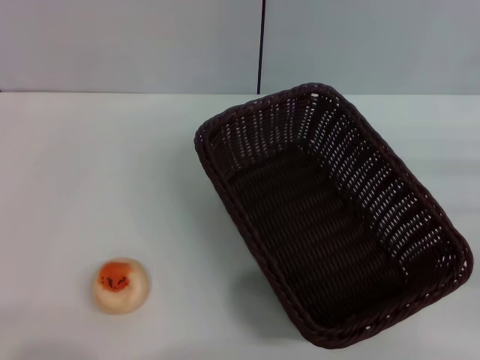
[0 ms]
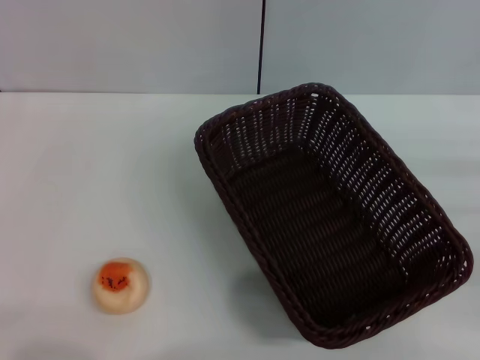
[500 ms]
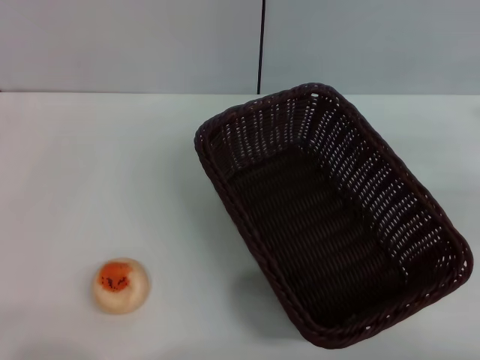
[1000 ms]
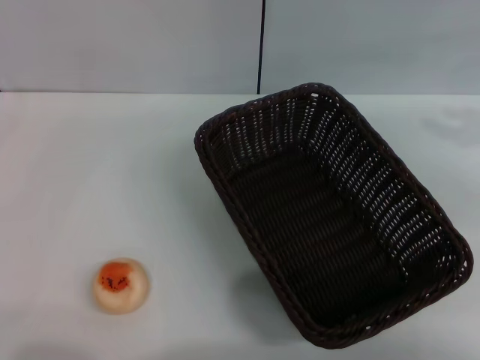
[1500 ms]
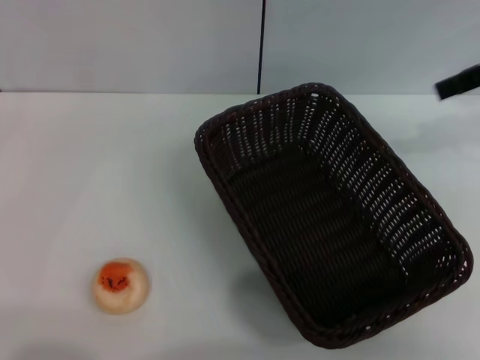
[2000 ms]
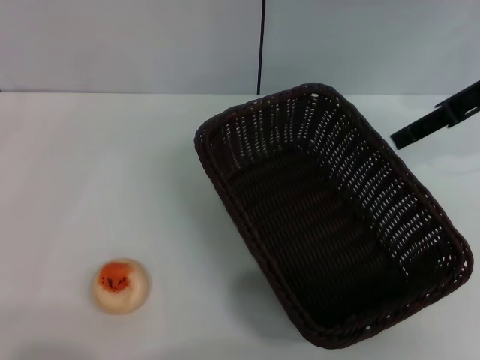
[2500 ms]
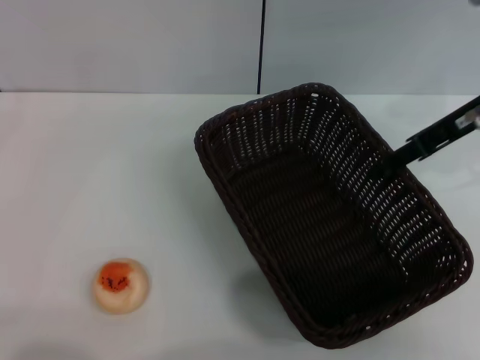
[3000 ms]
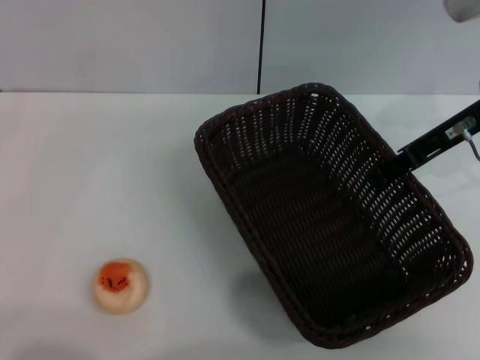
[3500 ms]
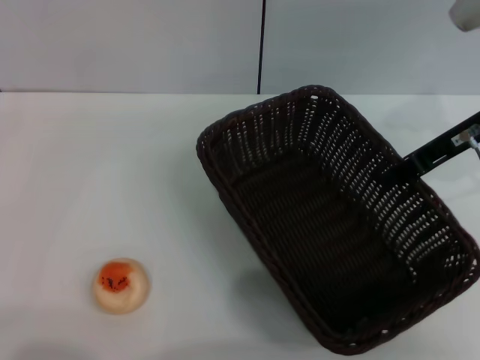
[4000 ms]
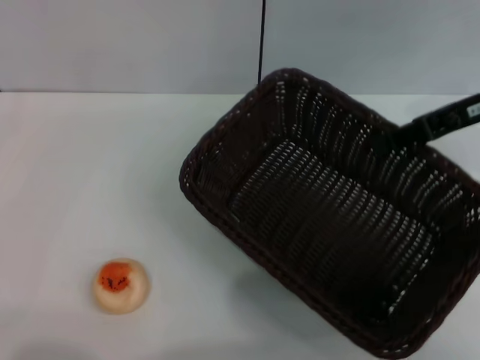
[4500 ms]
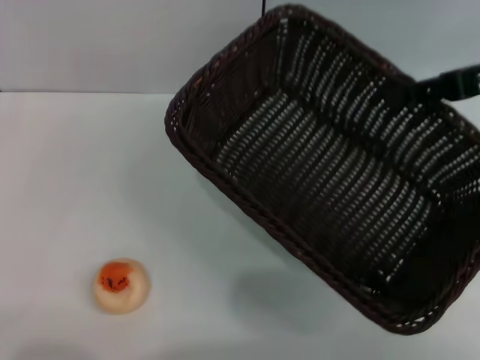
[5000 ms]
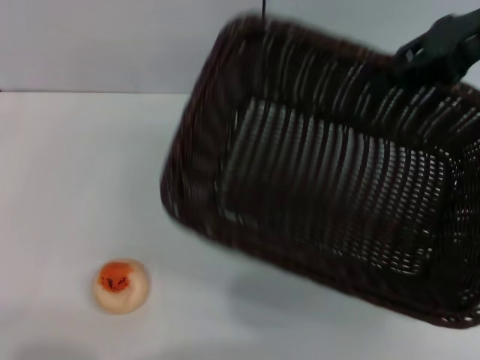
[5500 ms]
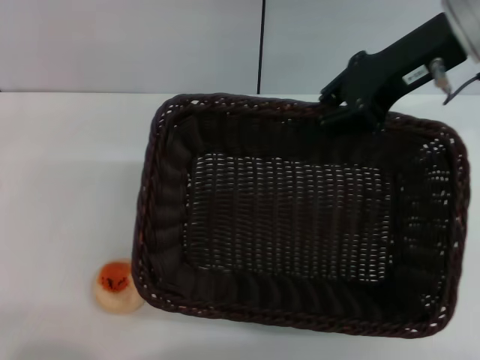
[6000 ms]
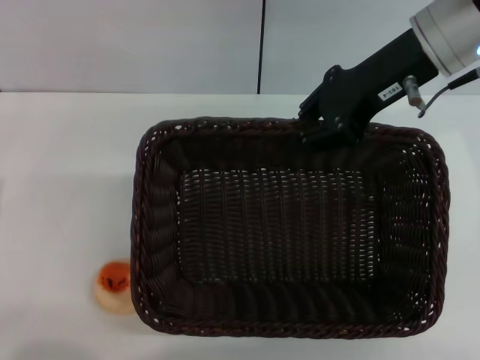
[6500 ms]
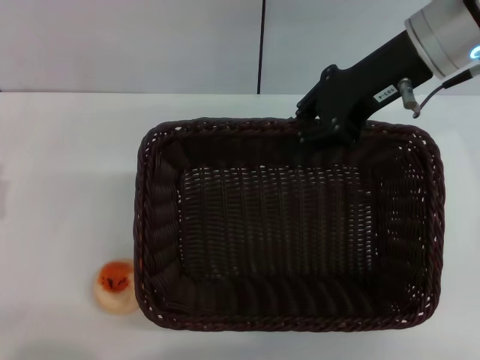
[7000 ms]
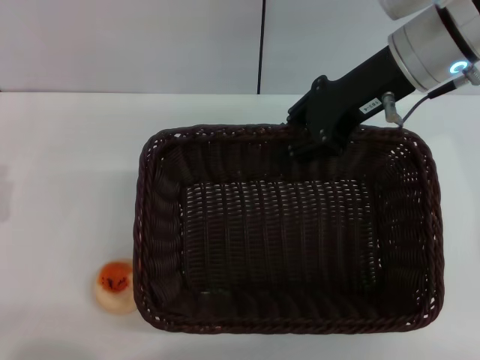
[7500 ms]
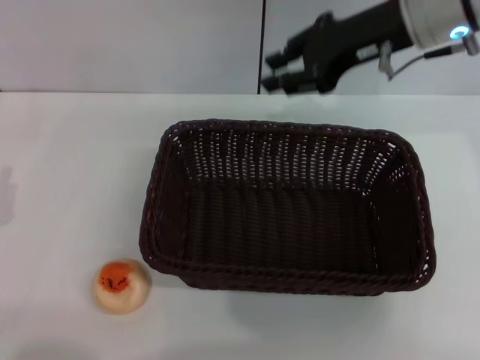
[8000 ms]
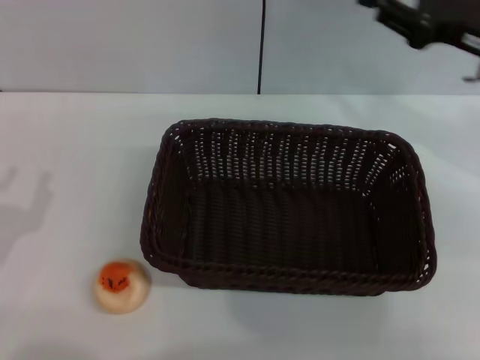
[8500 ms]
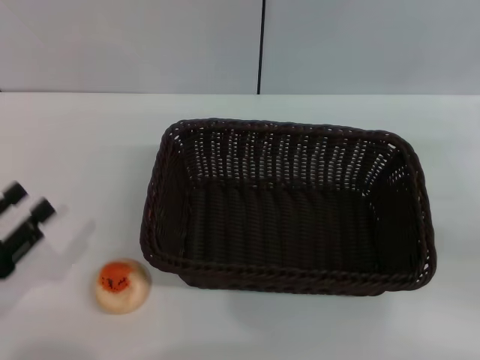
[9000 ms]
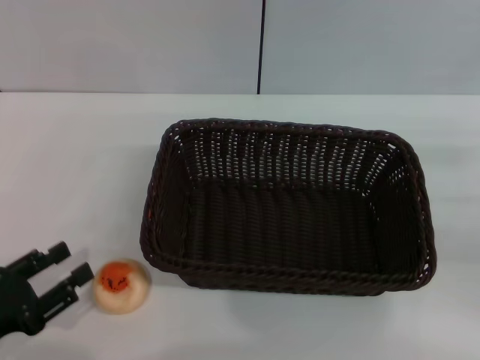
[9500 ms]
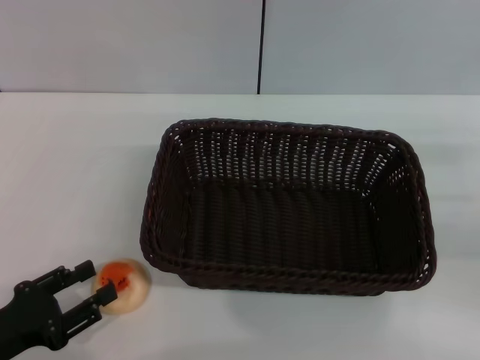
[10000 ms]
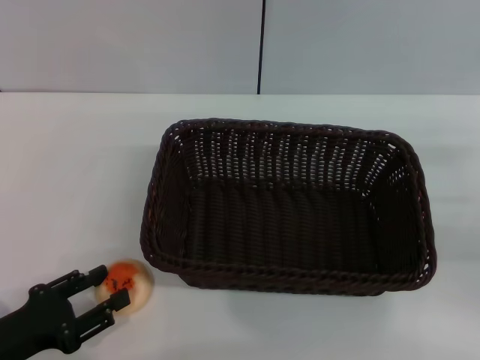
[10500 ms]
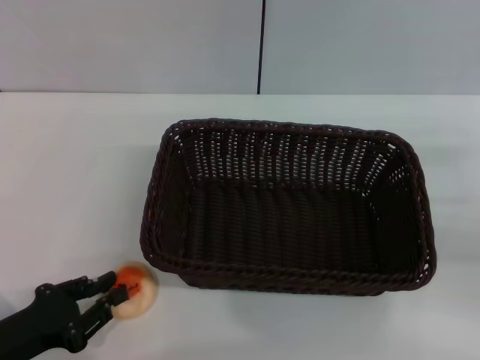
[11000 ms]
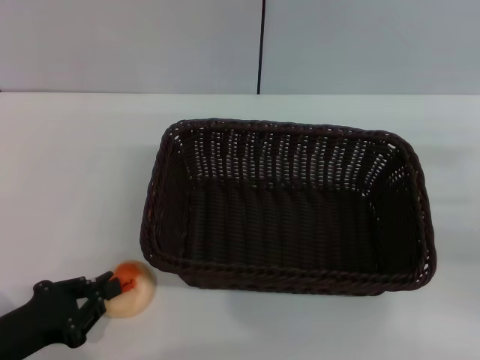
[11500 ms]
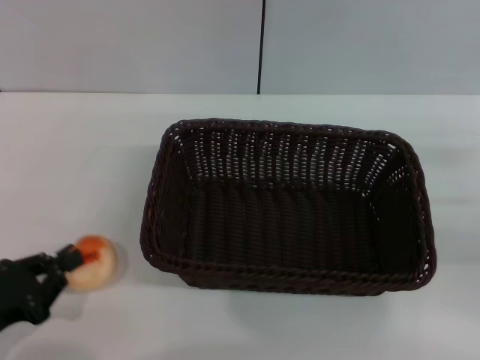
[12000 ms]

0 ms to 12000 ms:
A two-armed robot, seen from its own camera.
Step, 0 ms to 8000 ms: Move the basket to the center of view with the right gripper.
Step, 8500 ms to 12000 ms: Pick up the egg yolk pastry with the left gripper.
0 ms to 2000 ms: The right gripper heads upward, forward and to the left, covering approximately 25 cm, and opens up.
2000 ms to 4000 ms: The right gripper is displaced downward and to the left by approximately 10 cm, and closes.
4000 ms to 6000 ms: The right gripper moves upward and to the left, approximately 10 cm.
8000 ms to 10000 ms: The right gripper heads to the right, downward and backward, covering some 30 cm.
10000 ms to 12000 ms: The left gripper closes up.

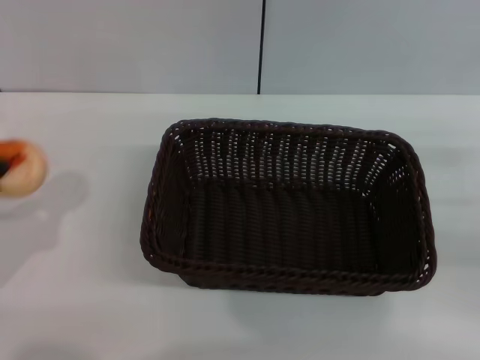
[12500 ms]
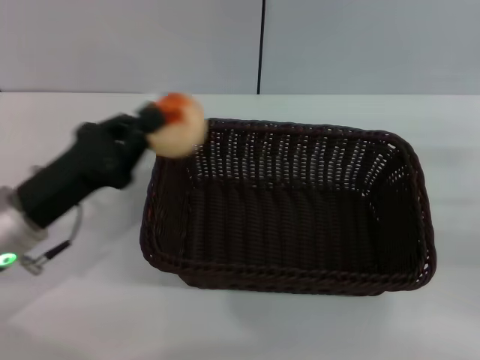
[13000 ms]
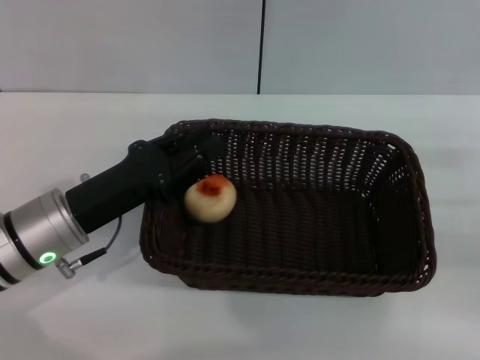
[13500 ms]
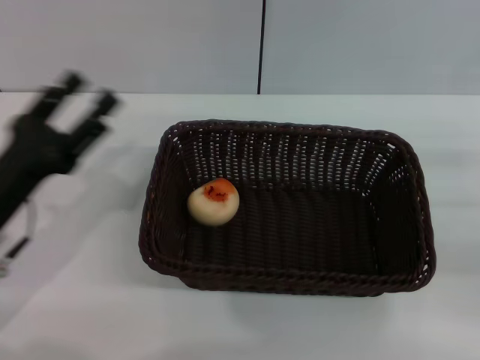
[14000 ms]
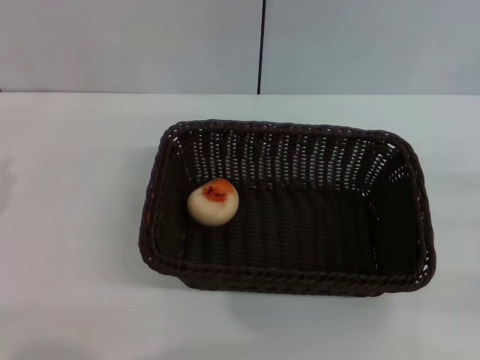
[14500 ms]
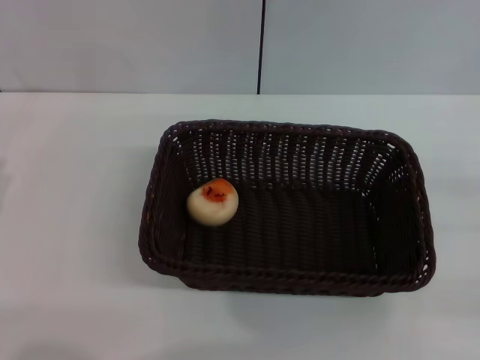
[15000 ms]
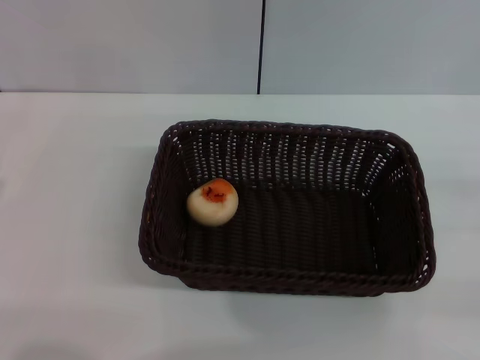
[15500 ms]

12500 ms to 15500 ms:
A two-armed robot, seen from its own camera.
Step, 12500 ms to 13500 ms: Place the egg yolk pastry into the basket with the left gripper.
12500 ms to 14000 ms: The left gripper heads to the right and forward, covering some 10 cm, and opens up.
14000 ms to 15500 ms: The left gripper is displaced to the left and backward by some 10 cm.

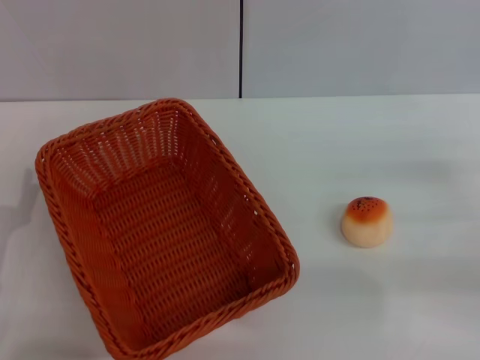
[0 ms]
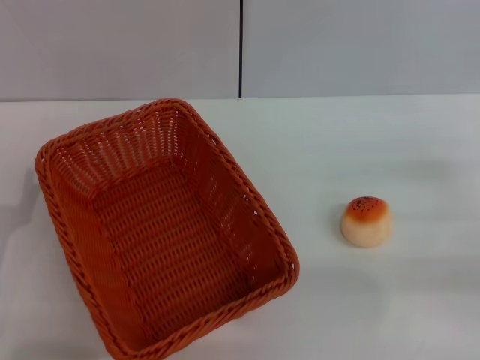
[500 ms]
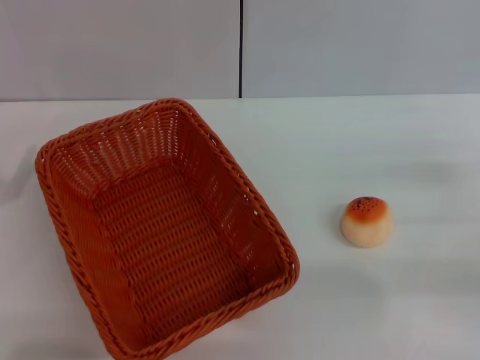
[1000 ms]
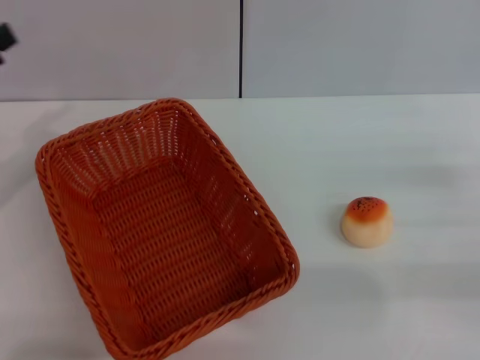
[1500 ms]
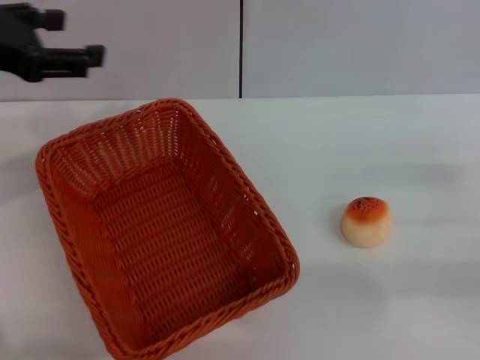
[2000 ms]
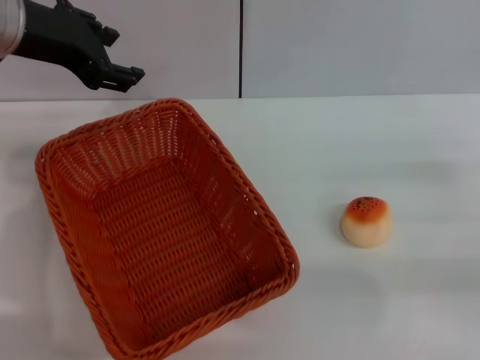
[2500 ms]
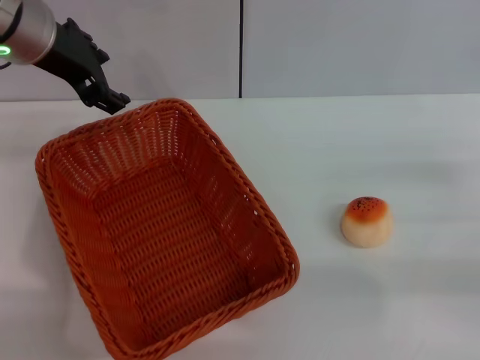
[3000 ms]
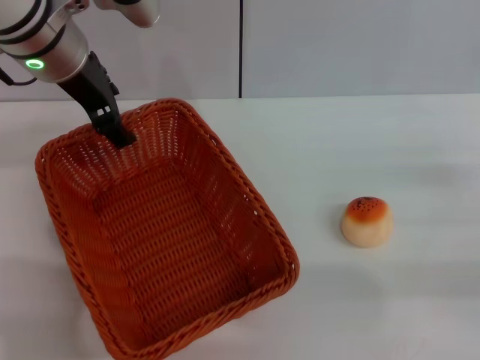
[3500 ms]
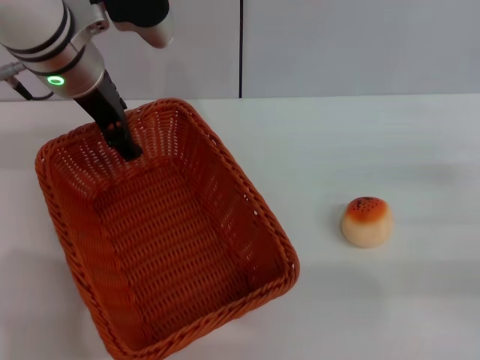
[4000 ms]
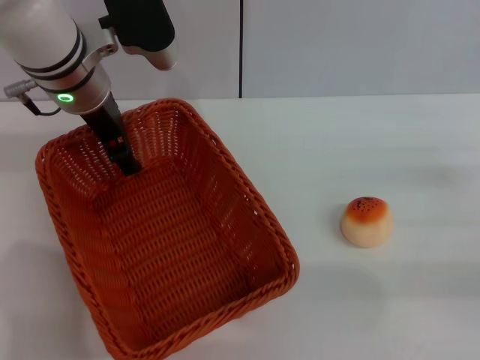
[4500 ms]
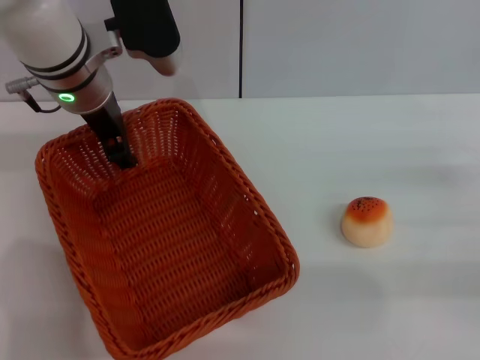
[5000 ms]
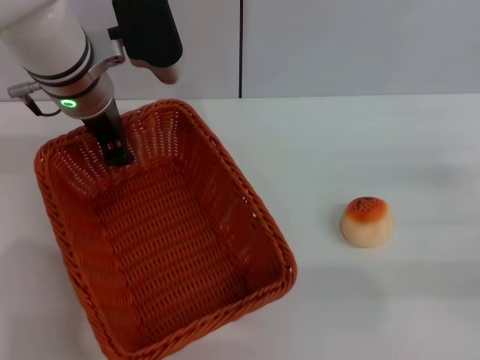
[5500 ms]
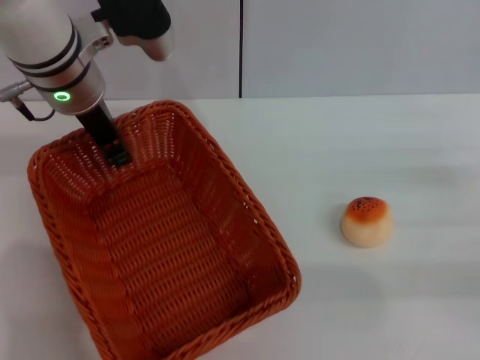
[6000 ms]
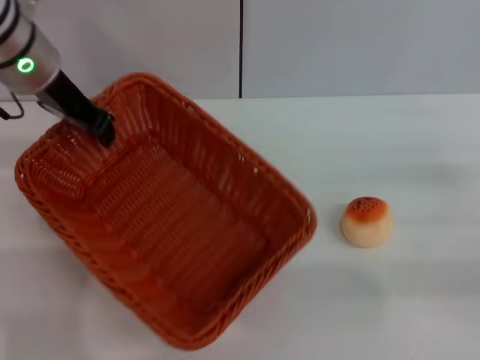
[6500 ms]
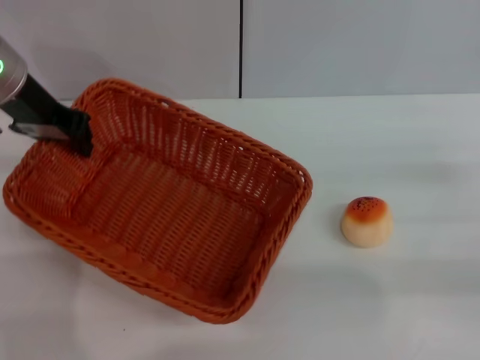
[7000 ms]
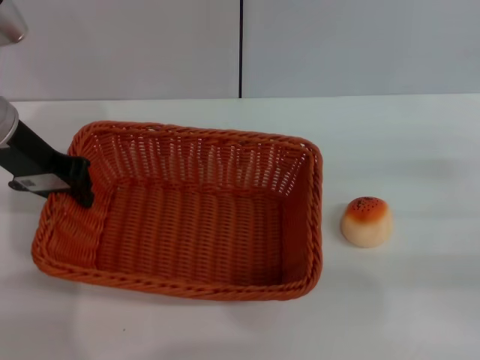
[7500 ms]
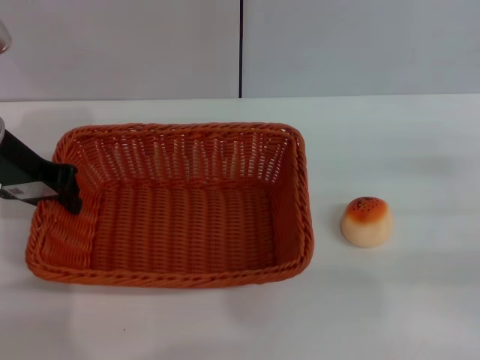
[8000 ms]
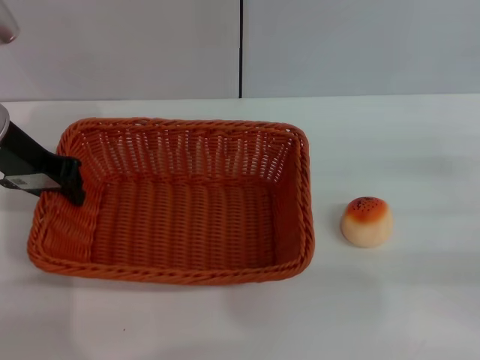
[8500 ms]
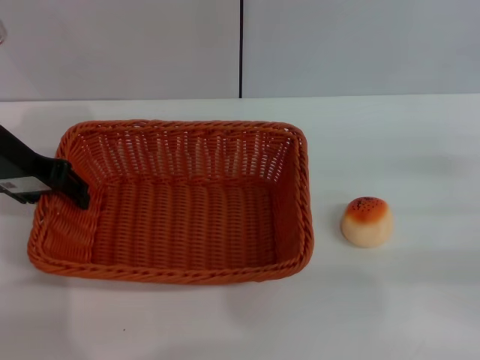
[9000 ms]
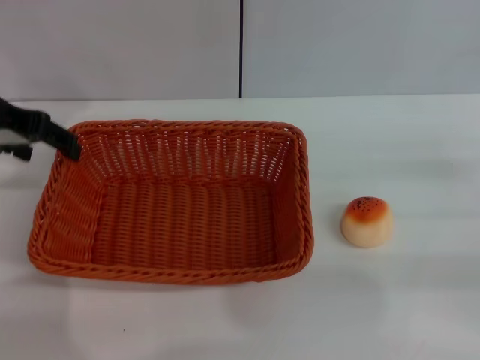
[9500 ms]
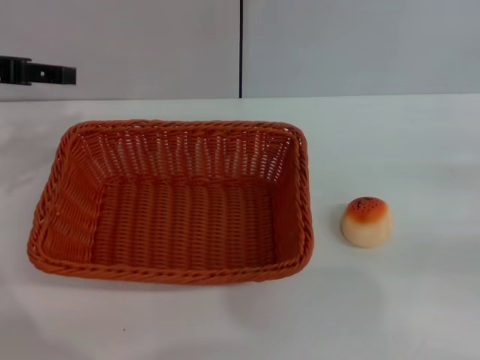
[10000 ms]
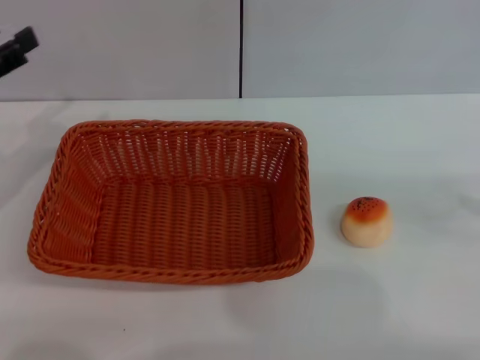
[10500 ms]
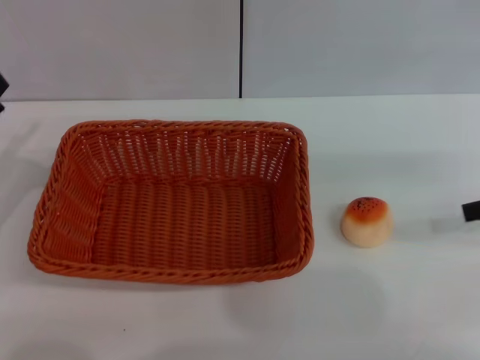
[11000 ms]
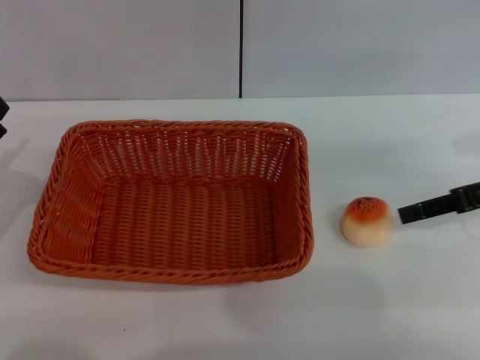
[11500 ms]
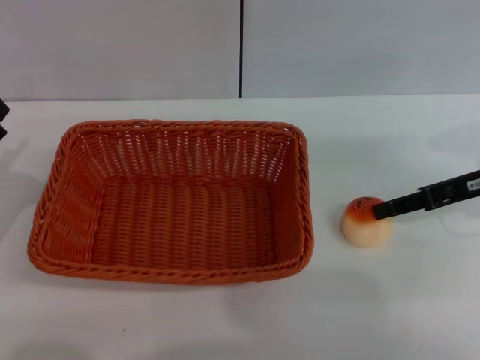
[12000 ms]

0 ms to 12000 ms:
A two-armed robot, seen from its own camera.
Step, 0 ms to 10000 ms: Move the basket to the center of view with the left gripper.
0 ms to 2000 ms: The left gripper travels upward and forward by about 25 cm.
2000 ms to 4000 ms: The left gripper heads to the right, forward and downward, covering roughly 15 cm.
4000 ms to 6000 ms: The left gripper closes up.
6000 ms to 8000 ms: The left gripper travels to the left by about 10 cm.
8000 ms to 10000 ms: The left gripper heads to the left, covering approximately 5 cm, and opens its fingers. Meanwhile the right gripper goes some 5 cm to the right.
10000 ms to 12000 ms: The left gripper shifts some 20 cm downward and backward. Meanwhile the right gripper goes about 15 cm to the left and forward.
